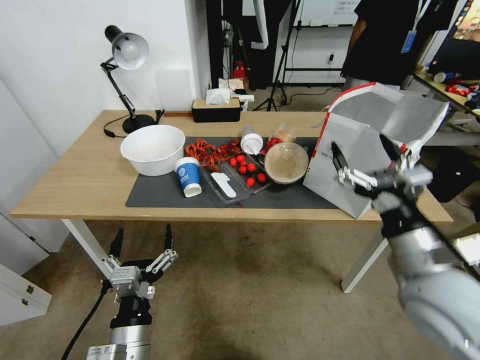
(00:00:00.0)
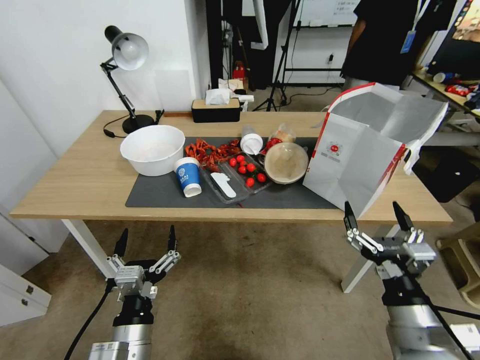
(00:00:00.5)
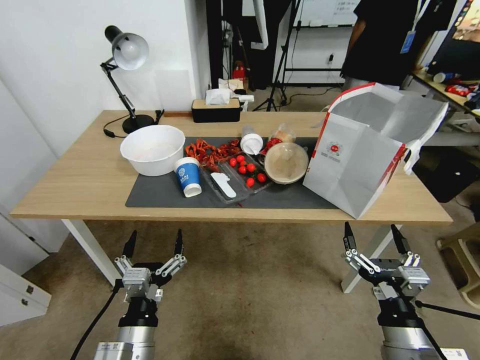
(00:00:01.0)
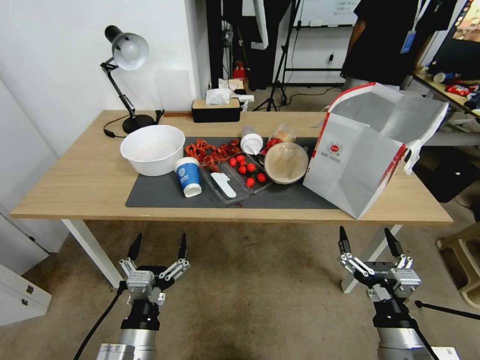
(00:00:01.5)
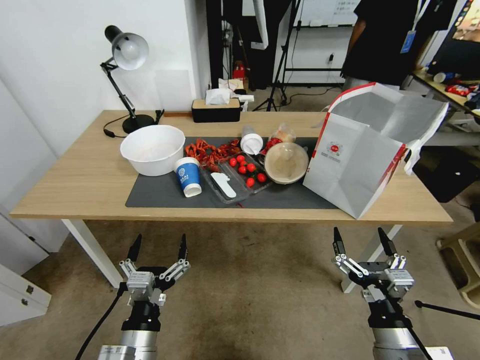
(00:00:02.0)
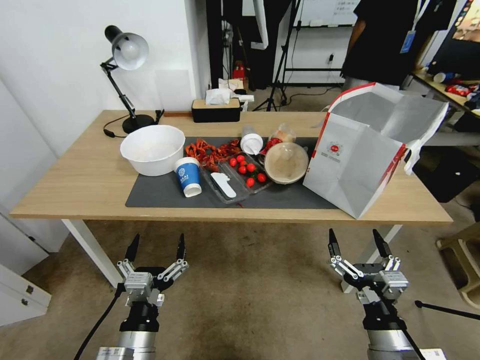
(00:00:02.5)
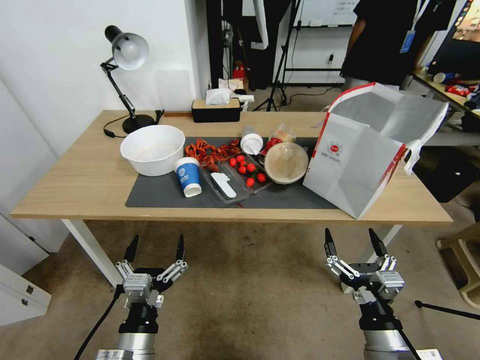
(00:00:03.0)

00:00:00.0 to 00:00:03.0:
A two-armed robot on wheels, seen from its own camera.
Task of the whole recording: Pick up the food delivery bag from the floor and place it on the table.
00:00:00.0 to 00:00:01.5: The right gripper shifts some 15 cm downward and backward.
00:00:01.5 to 00:00:03.0: There are only small adjustments of the grippers.
